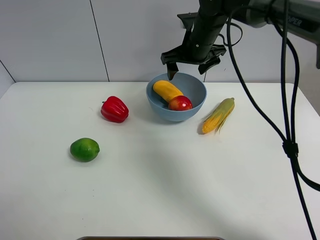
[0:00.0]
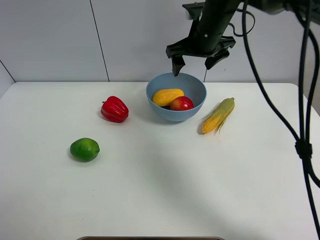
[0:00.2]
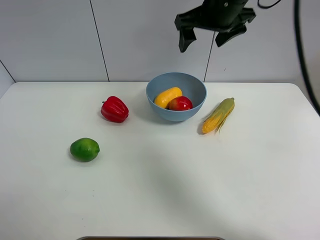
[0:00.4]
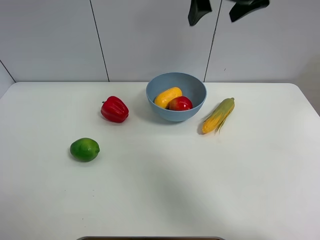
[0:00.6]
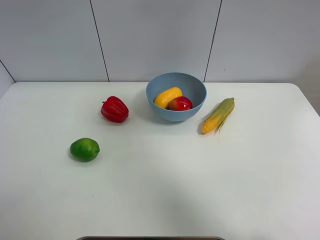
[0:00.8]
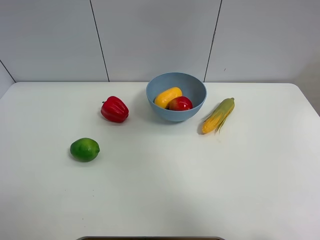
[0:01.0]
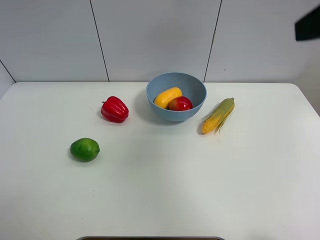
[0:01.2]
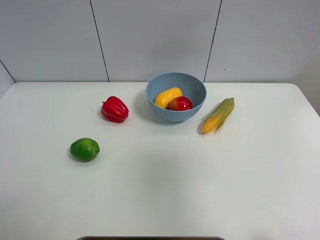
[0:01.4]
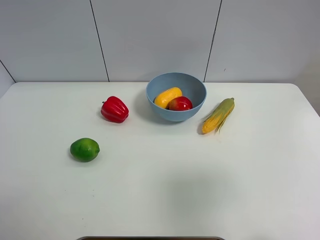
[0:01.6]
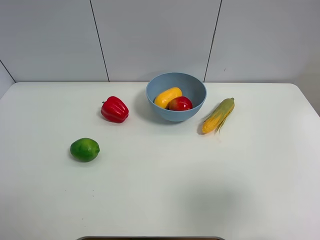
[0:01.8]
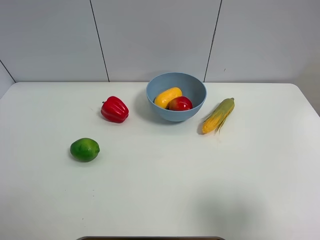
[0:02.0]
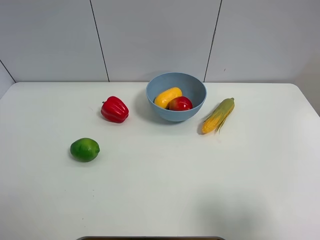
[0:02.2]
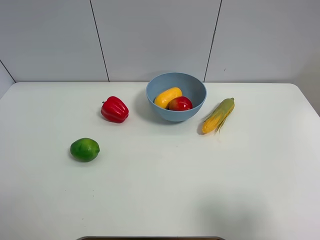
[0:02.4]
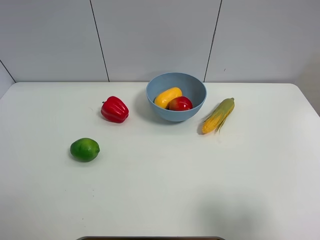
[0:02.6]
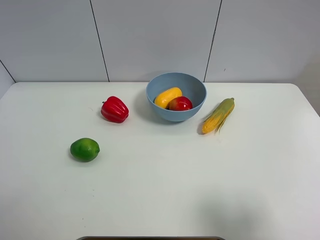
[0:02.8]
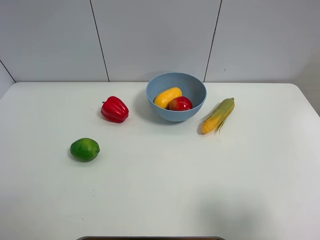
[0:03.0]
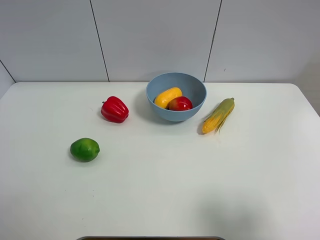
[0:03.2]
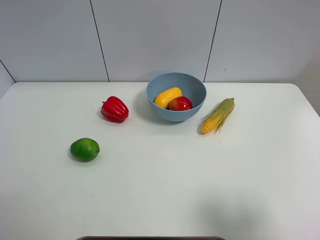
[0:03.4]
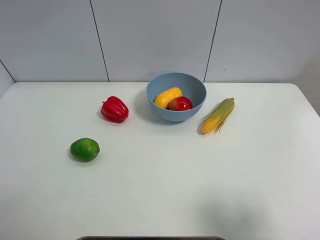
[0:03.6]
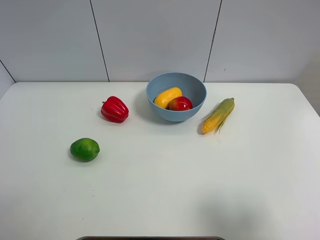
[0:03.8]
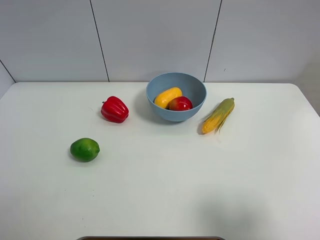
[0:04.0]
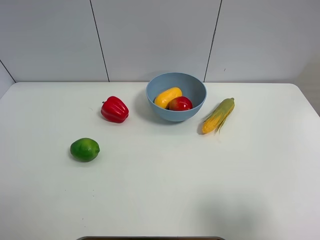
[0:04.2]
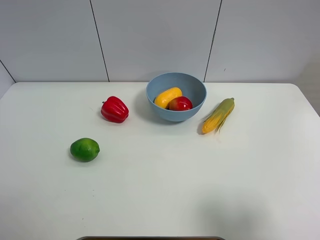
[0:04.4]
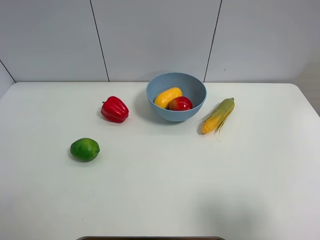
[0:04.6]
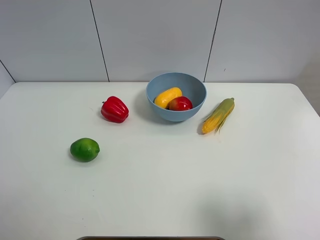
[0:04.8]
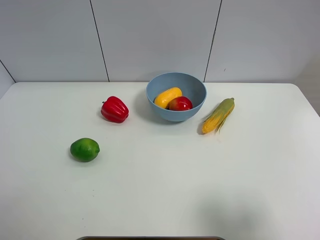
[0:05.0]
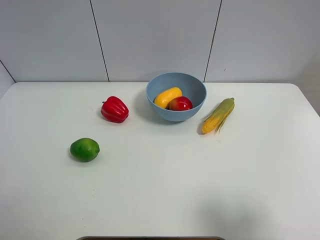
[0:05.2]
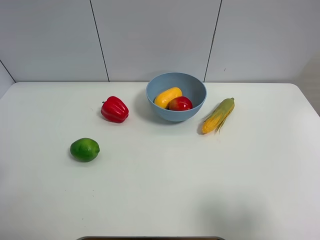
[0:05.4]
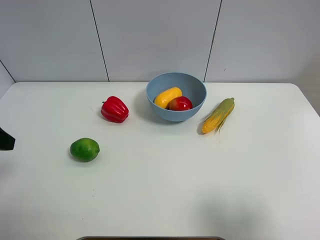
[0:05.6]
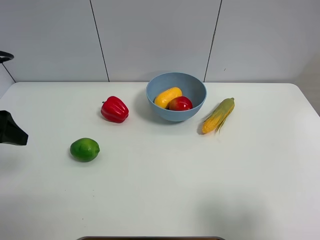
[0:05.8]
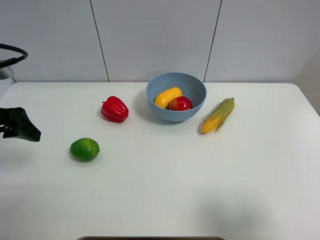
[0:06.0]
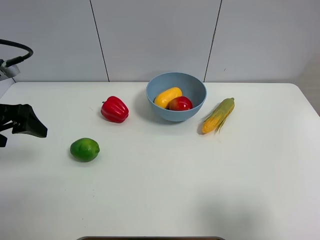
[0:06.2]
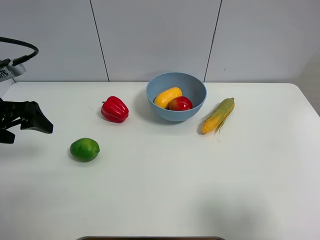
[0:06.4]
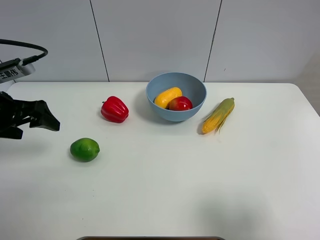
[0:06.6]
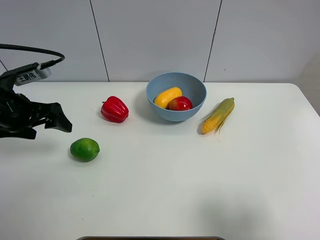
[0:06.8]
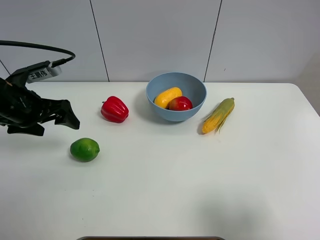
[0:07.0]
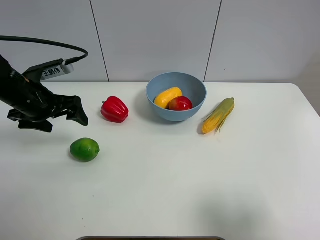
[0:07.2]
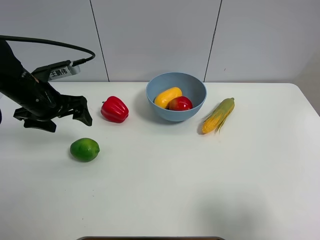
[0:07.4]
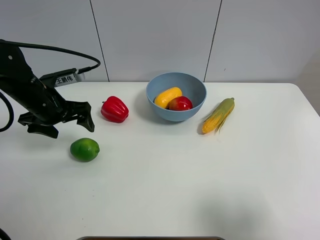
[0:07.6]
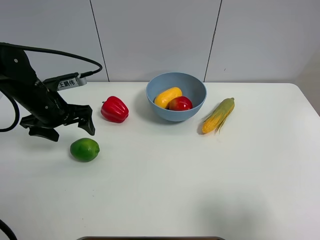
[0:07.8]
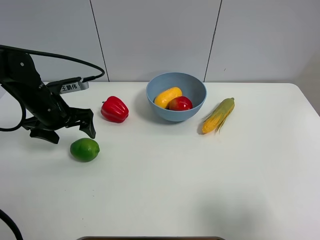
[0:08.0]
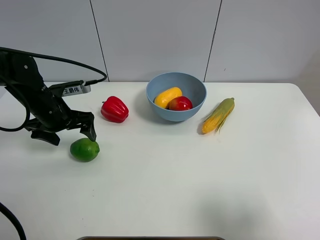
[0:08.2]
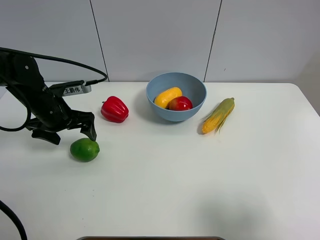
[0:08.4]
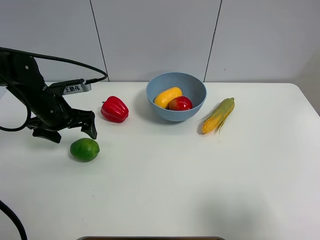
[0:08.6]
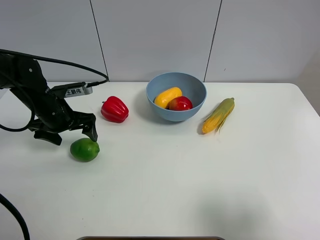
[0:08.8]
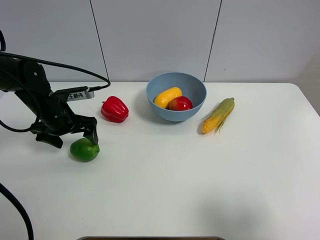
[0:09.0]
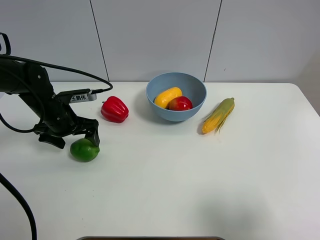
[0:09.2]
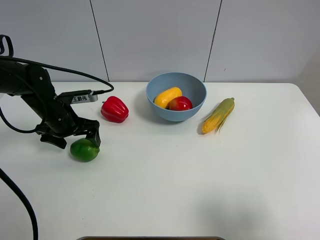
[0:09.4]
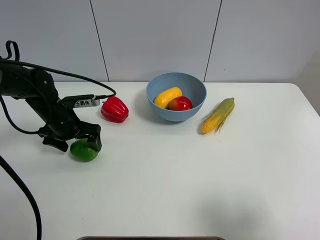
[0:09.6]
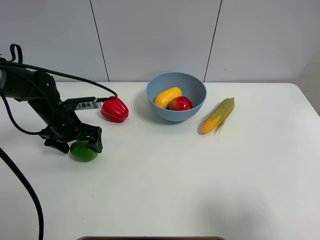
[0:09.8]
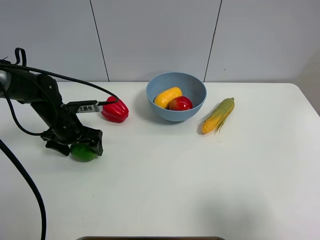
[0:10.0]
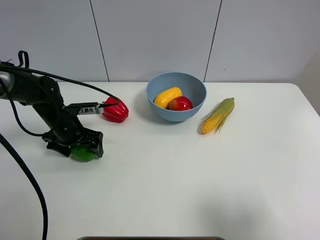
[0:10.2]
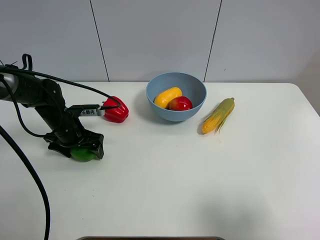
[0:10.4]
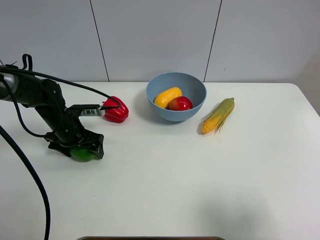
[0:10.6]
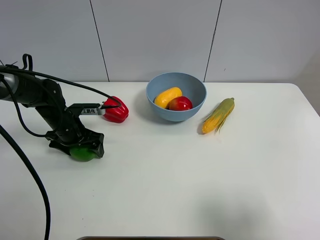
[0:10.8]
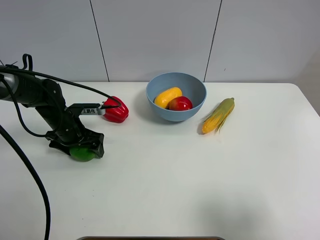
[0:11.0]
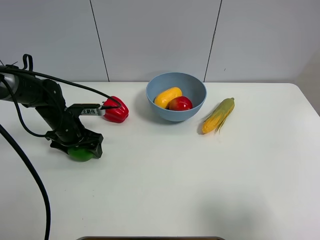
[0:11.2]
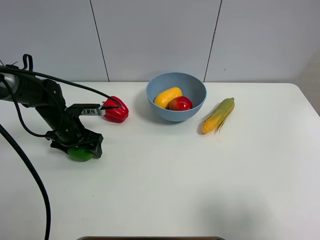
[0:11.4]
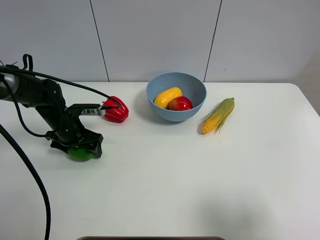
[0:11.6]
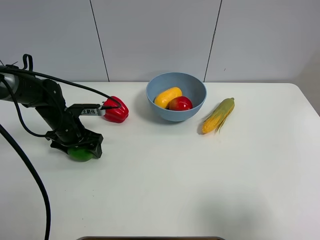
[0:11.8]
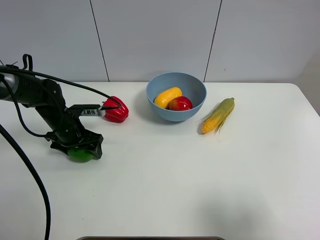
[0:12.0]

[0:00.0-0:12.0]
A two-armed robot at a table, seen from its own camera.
Task of the whole recording: Put the three fruits on the table into a bowl.
Step, 0:00.0 to 0:11.2: Grasp the green lemon with left gripper.
0:00.0 to 0:01.6: The right gripper travels backward and to the right by roughly 40 cm.
0:01.6 to 0:03.0: The right gripper travels downward and backward by some 10 cm.
0:03.0 to 0:04.4: Both grippers stay put.
0:04.4 to 0:06.0: The left gripper travels forward by roughly 20 cm.
0:06.0 to 0:07.6: The left gripper is displaced forward, to the right and downward by roughly 15 cm.
0:07.6 to 0:09.0: The left gripper shifts by approximately 5 cm.
0:09.0 to 0:10.4: The left gripper goes about 5 cm downward.
0:10.4 to 0:12.0: The left gripper closes its fingers.

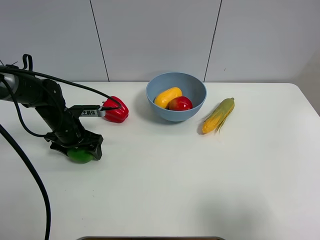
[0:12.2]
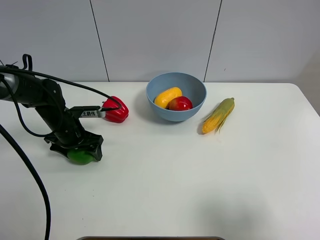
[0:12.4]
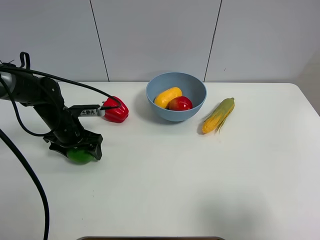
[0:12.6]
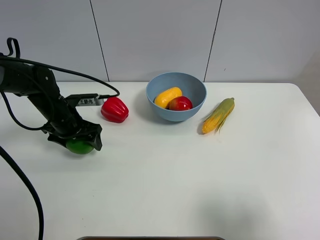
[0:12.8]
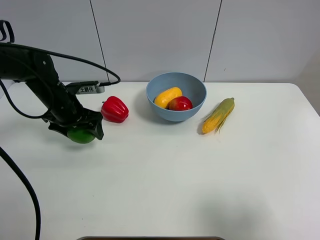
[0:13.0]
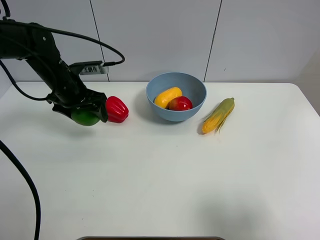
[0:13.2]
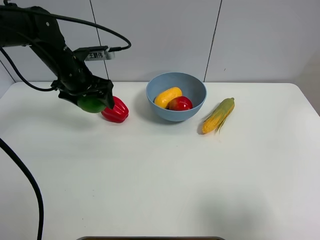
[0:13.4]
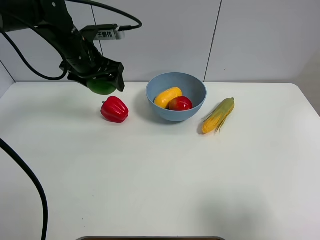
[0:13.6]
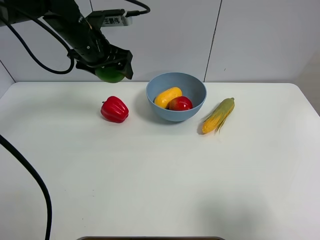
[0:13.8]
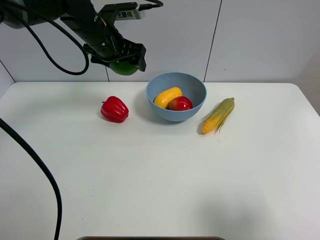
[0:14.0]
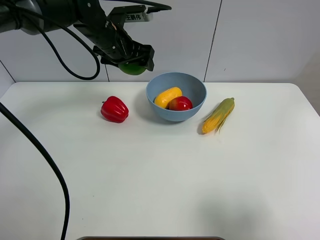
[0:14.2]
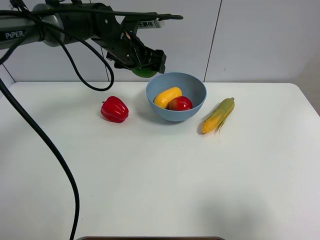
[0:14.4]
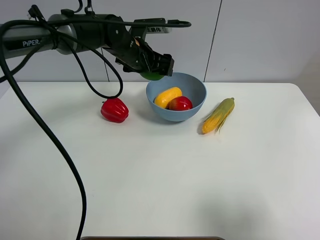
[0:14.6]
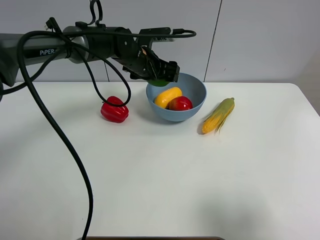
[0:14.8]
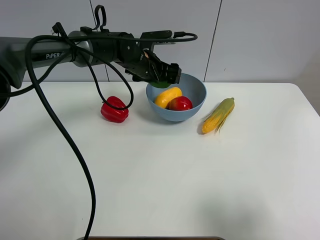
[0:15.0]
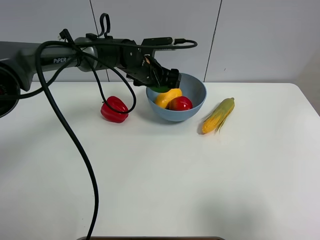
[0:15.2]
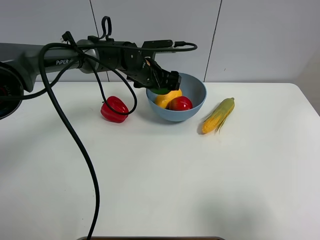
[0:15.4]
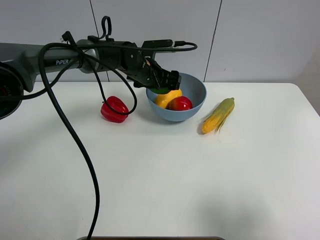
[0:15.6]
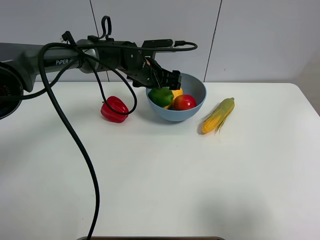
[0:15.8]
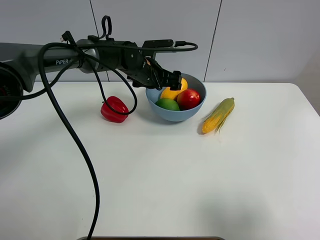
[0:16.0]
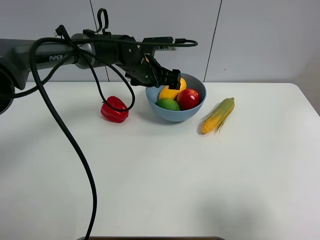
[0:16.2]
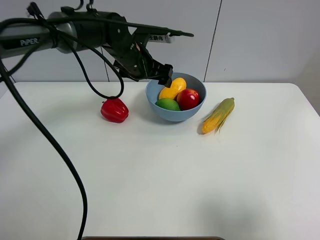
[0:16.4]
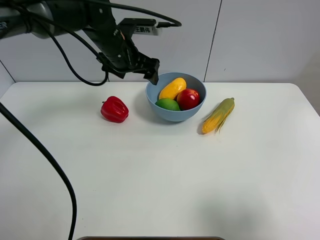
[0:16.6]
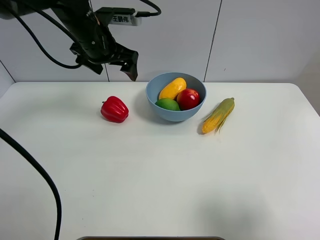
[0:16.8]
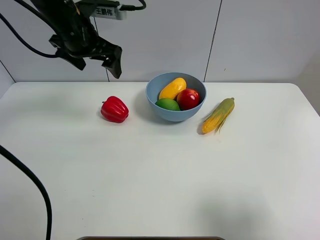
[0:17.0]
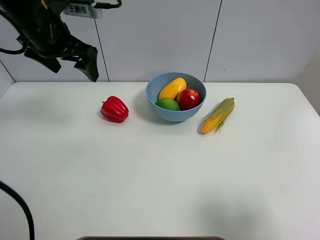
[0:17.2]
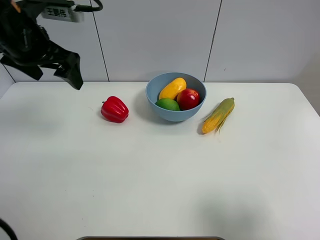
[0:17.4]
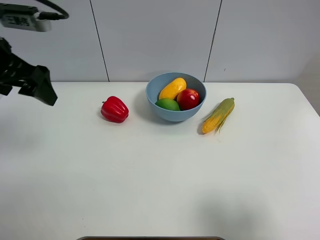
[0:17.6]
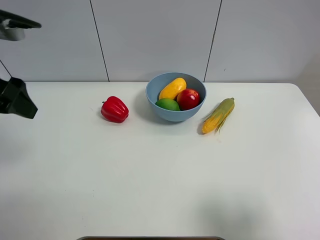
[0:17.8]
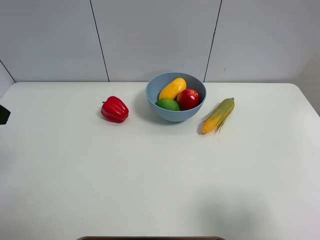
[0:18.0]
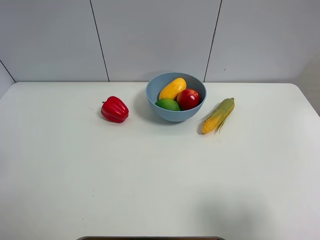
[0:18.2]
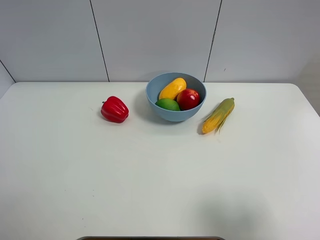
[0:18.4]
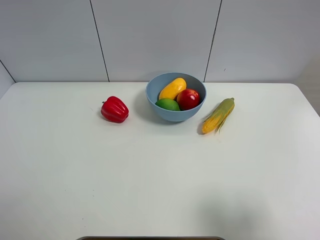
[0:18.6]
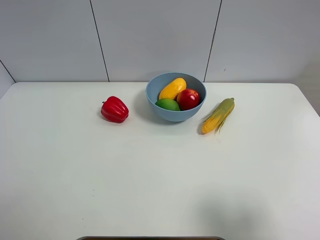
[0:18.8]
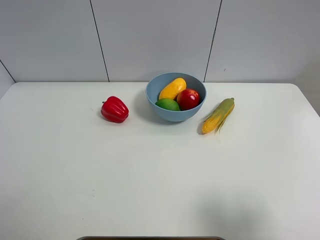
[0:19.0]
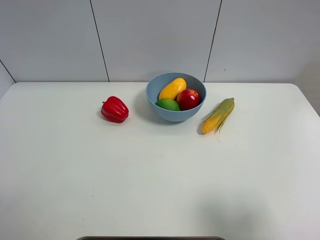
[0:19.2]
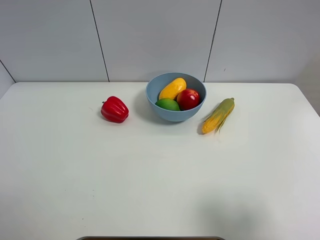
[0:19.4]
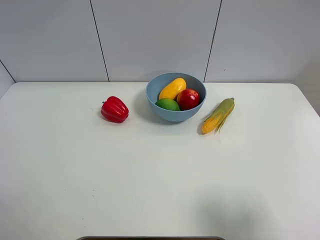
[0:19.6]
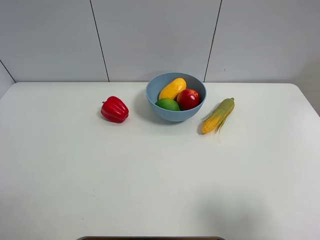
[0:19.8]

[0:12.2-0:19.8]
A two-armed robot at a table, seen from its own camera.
Task of the whole recording: Put the three fruits on the table into a bowl.
Step, 0:12.2 to 0:15.8: Place the green lemon in the blue bowl with left gripper.
0:12.2 to 0:13.8: The left gripper is displaced upward and to the right by some 20 cm.
0:13.8 to 0:15.2: The left gripper heads downward and to the right, covering about 15 cm.
0:15.2 to 0:16.8: The left gripper moves upward and to the left, about 15 cm, and opens up.
0:16.8 to 0:18.2: The left gripper travels backward and to the left by roughly 30 cm.
